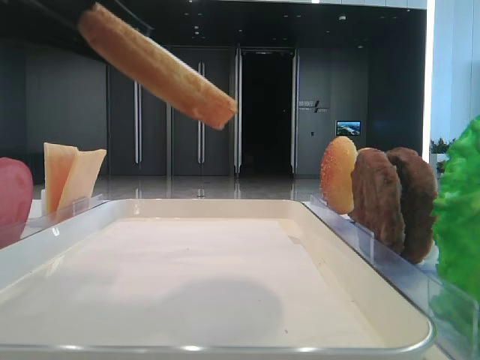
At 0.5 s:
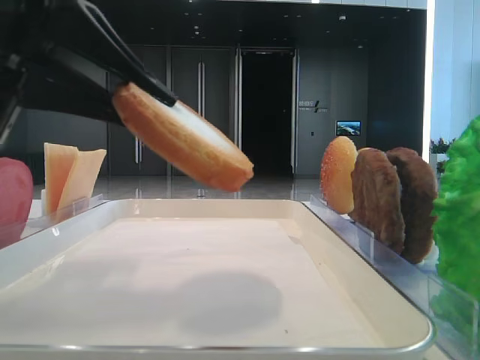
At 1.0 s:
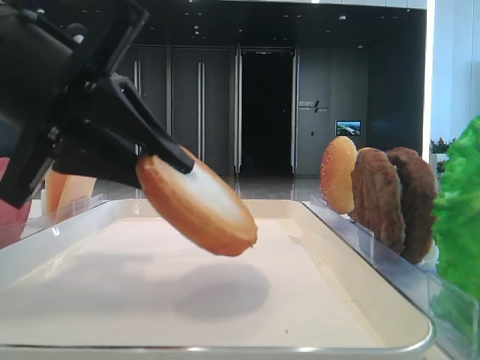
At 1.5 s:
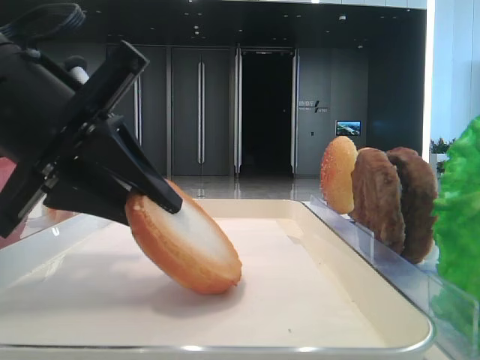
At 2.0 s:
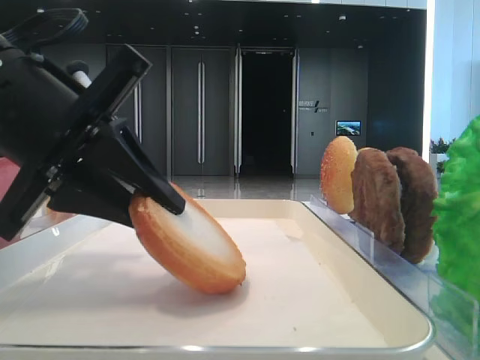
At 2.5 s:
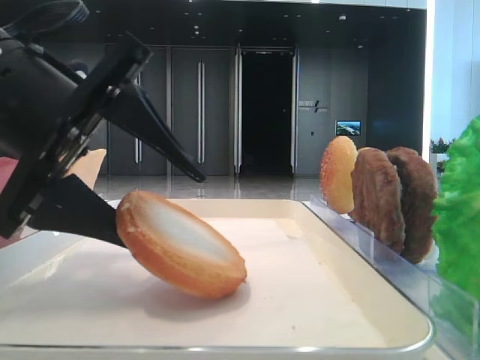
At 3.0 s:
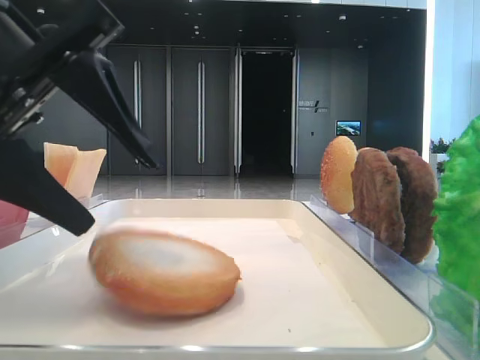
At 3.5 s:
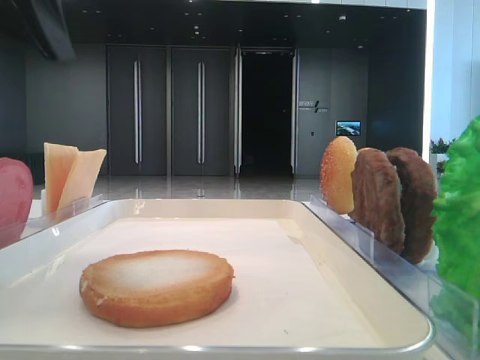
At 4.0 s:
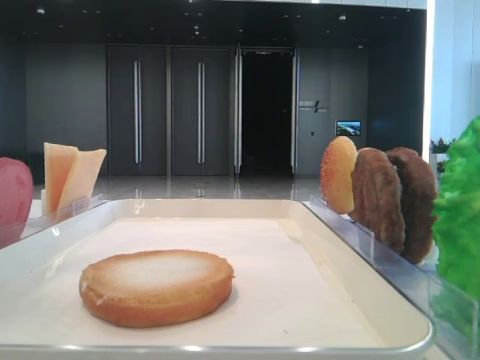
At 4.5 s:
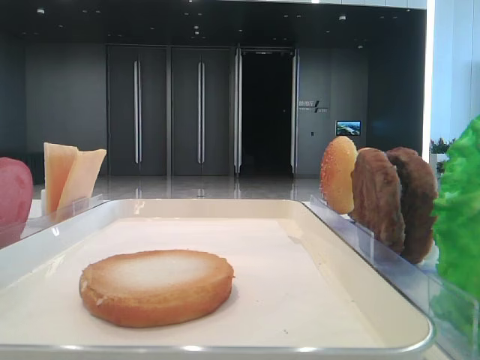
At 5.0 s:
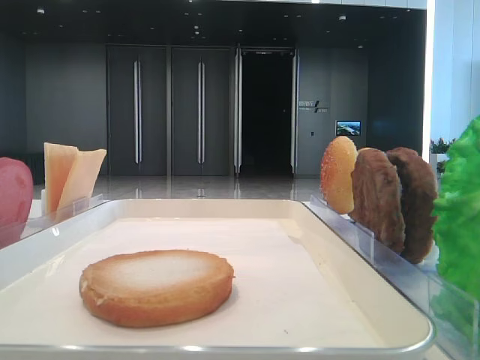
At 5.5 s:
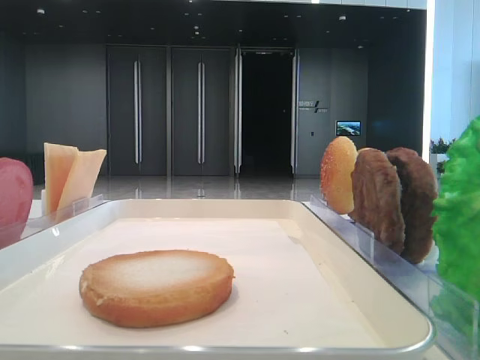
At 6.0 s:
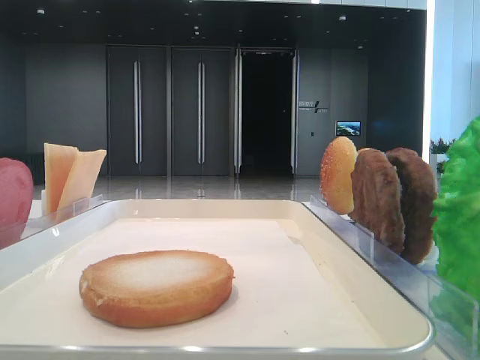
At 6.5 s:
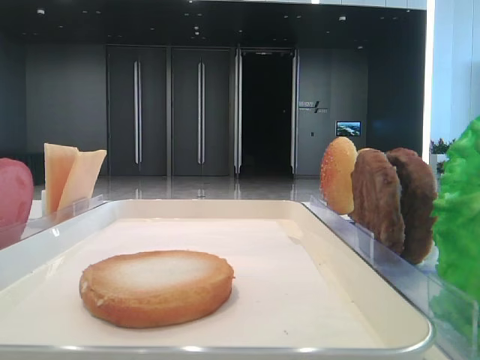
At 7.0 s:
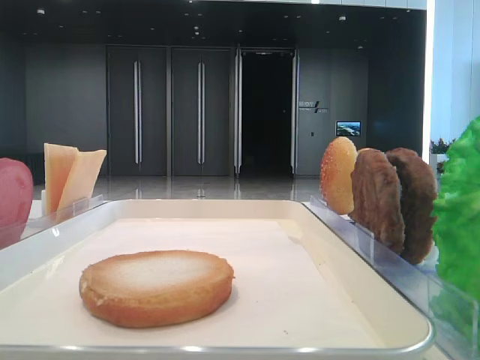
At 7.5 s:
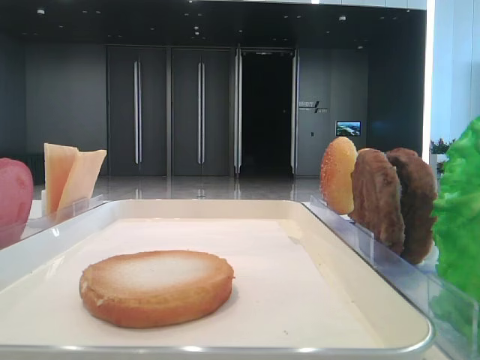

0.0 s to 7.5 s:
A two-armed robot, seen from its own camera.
Step, 0.0 to 2.5 s: Place the bread on the tray with the left hand.
0.0 to 2.0 s: The left gripper travels downward and forward by some 10 cm.
2.0 to 4.0 s: The left gripper moves upward and to the left, some 20 cm, and opens up.
4.0 to 5.5 s: The left gripper heads to the left and backward, covering some 15 cm.
